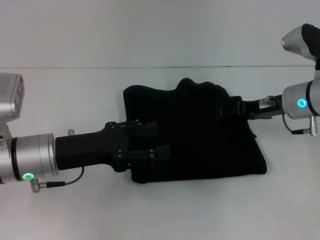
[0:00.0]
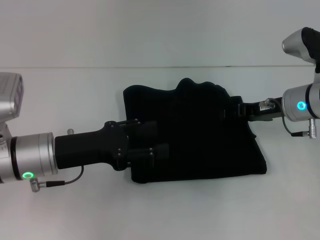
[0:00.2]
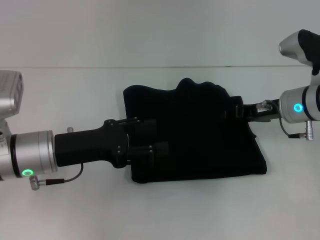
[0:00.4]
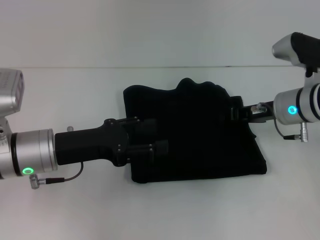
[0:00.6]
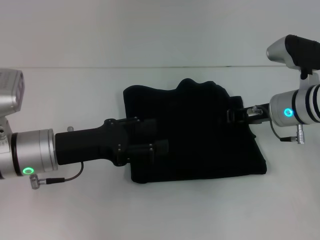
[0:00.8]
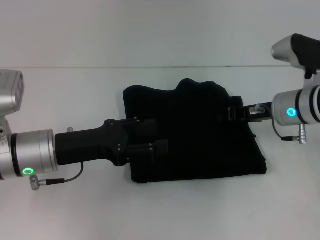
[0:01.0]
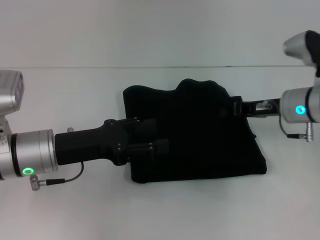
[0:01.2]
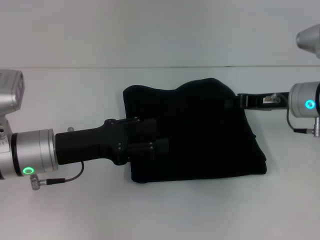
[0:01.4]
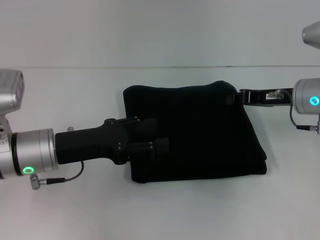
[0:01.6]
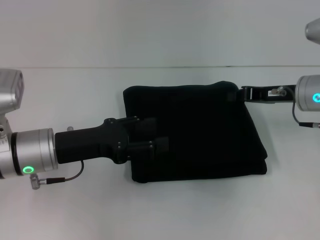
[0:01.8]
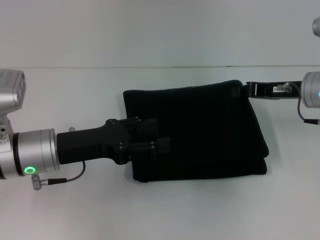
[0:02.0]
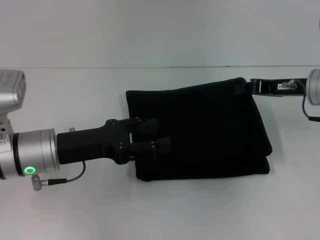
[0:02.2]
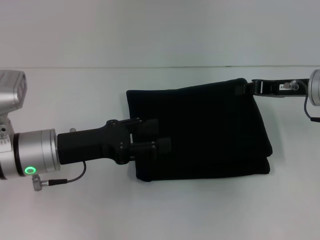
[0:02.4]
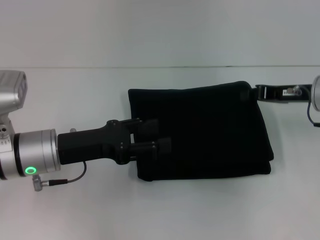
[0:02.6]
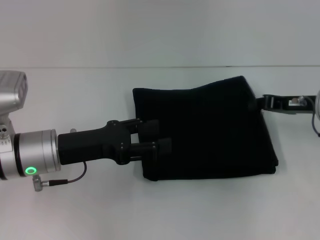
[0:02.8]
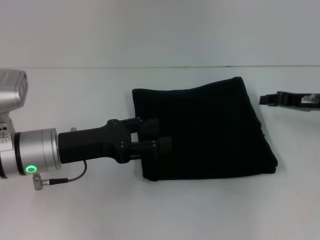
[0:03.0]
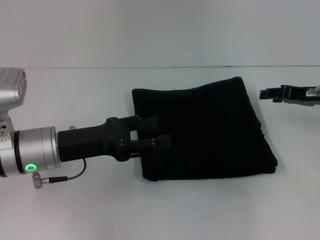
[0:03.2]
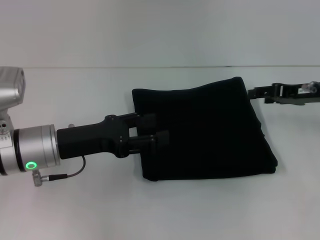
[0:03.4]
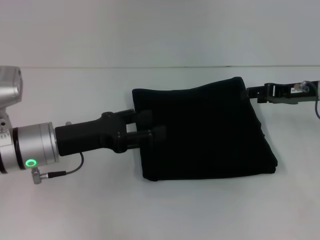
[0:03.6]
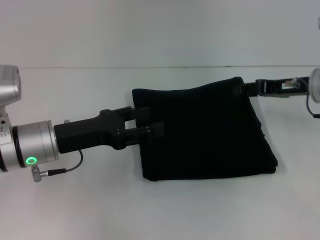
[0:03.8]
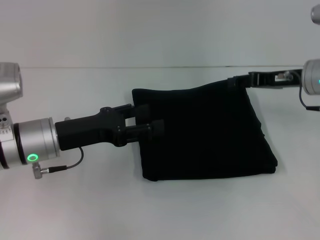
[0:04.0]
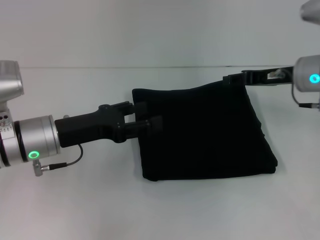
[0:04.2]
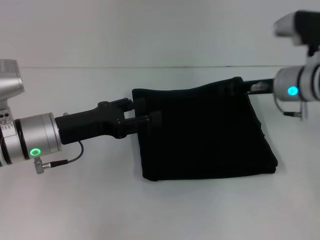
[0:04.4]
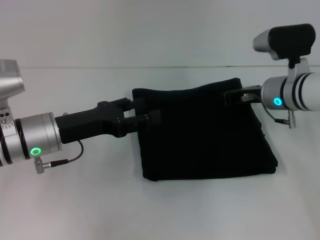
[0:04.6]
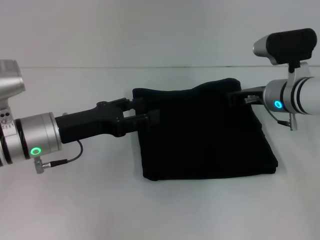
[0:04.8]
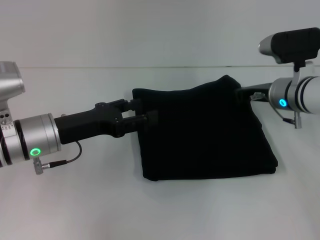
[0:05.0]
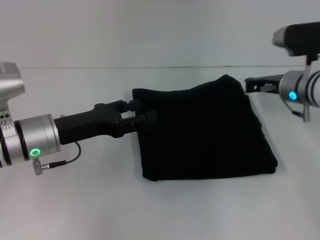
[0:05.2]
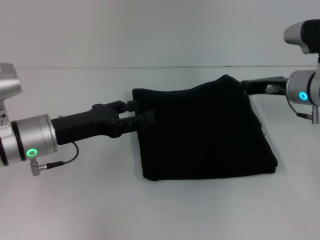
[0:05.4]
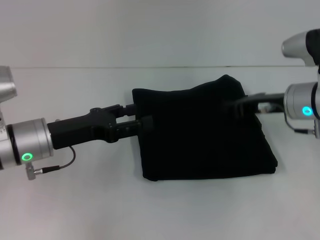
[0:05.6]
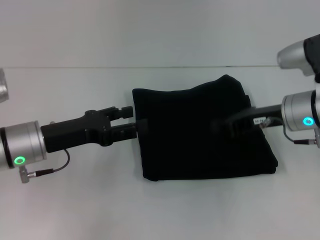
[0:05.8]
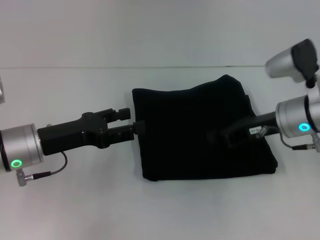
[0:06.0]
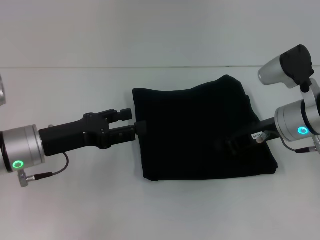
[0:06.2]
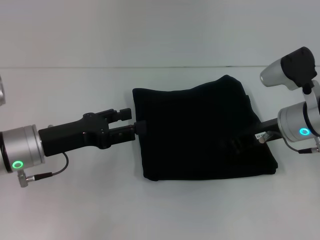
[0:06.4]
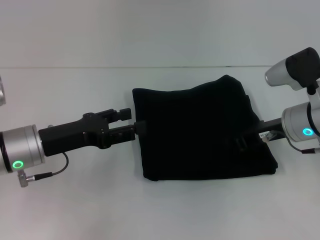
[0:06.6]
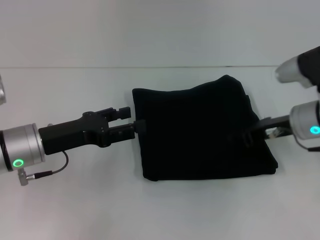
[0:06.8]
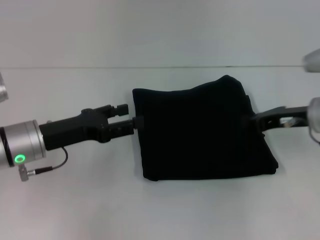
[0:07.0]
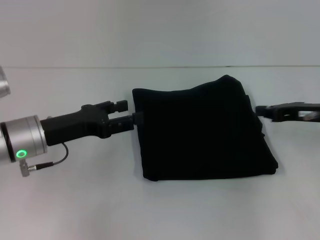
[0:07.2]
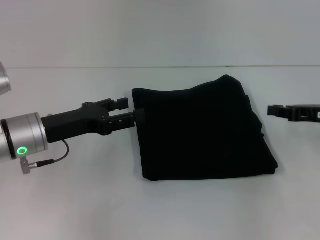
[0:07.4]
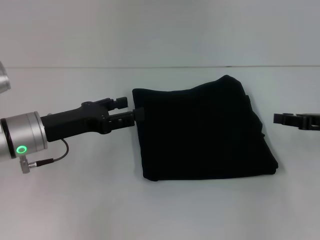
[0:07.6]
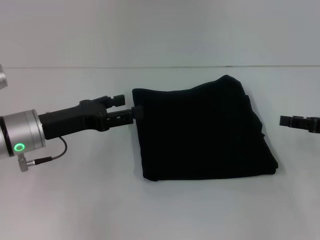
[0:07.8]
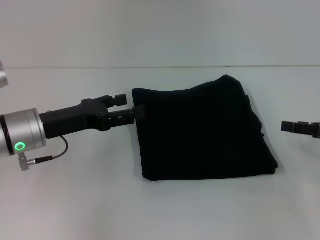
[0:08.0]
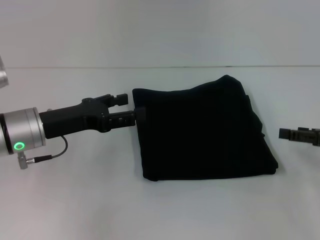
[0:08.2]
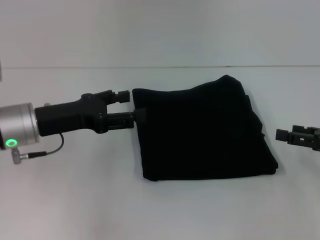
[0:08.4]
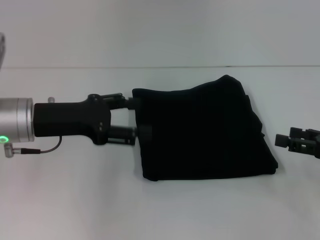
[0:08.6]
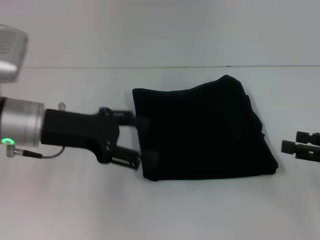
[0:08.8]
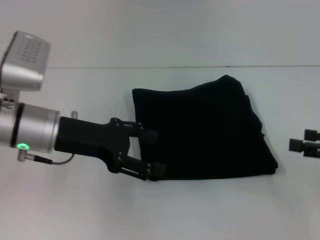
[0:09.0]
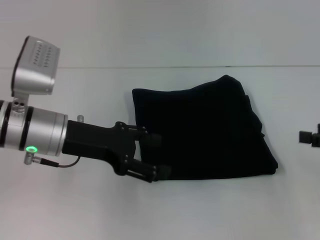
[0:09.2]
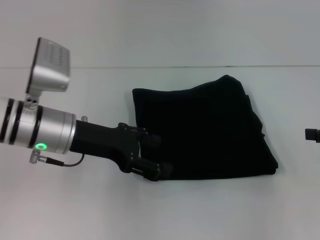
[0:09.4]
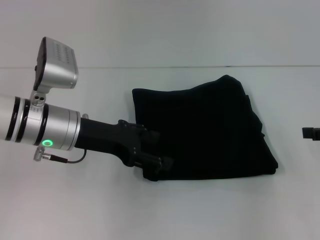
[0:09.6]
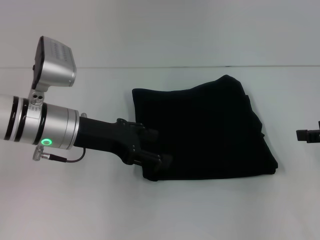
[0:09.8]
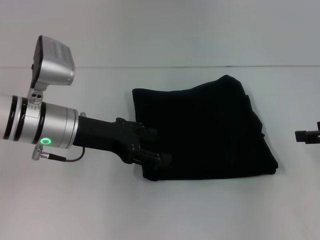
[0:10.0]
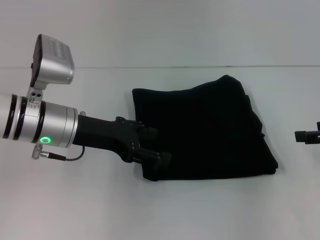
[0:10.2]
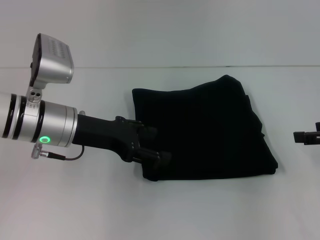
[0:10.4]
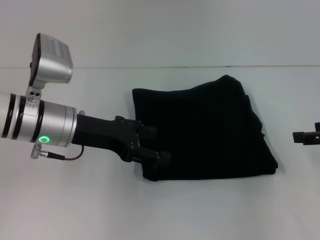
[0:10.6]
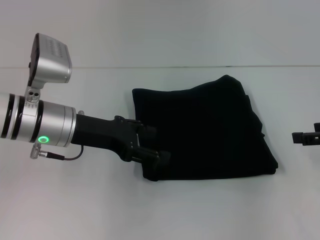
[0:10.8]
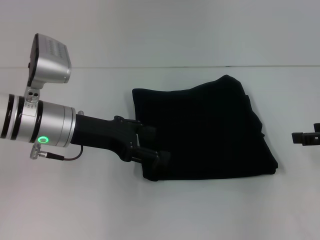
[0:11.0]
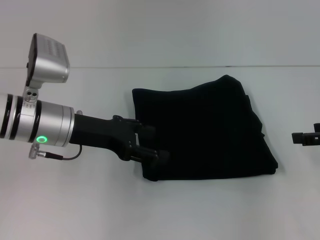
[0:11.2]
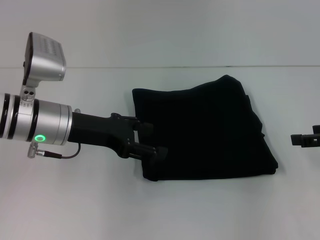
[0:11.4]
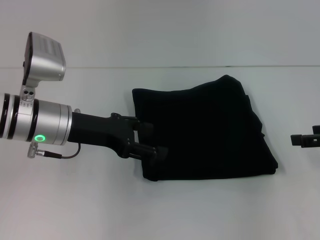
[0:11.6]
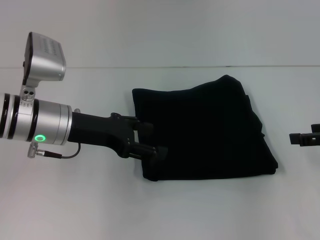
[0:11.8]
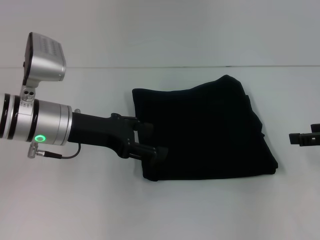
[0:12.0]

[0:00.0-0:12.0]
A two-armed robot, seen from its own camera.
0:00.0 to 0:01.6: The right gripper closes its fingers.
0:01.6 to 0:03.0: The right gripper shifts some 5 cm to the right.
0:03.0 to 0:04.4: The right gripper is displaced to the left by about 10 cm.
0:04.4 to 0:06.0: The right gripper moves backward, some 5 cm, and closes.
0:06.0 to 0:07.6: The right gripper is displaced to the right by approximately 10 cm.
0:07.6 to 0:09.0: The left gripper changes place by approximately 5 cm. The right gripper moves backward, roughly 10 cm, and opens up.
0:09.0 to 0:10.4: The right gripper ends up some 5 cm from where it was.
0:10.4 to 0:12.0: Both grippers stay put.

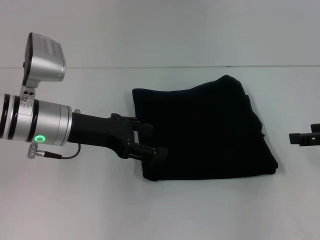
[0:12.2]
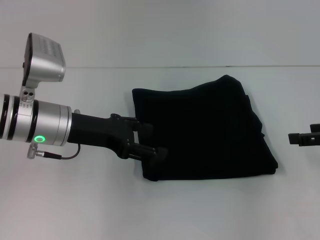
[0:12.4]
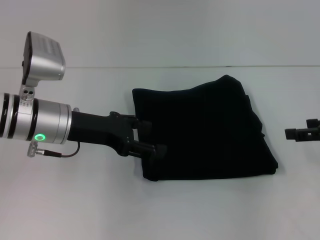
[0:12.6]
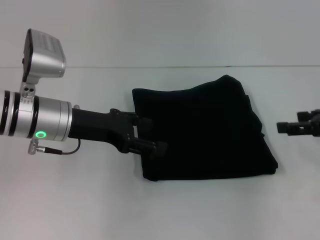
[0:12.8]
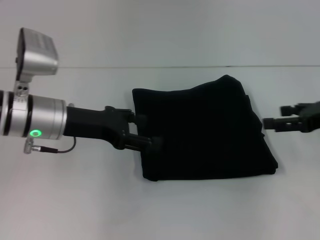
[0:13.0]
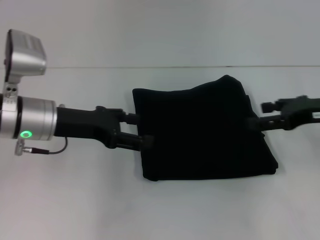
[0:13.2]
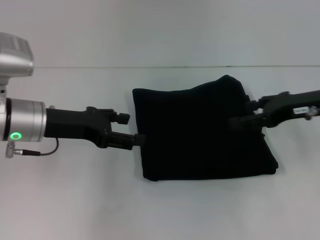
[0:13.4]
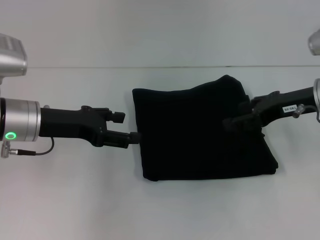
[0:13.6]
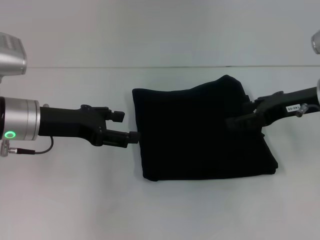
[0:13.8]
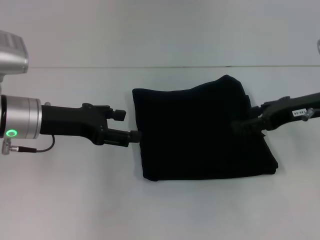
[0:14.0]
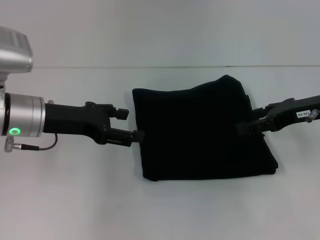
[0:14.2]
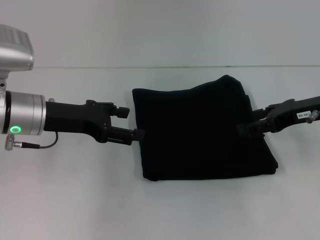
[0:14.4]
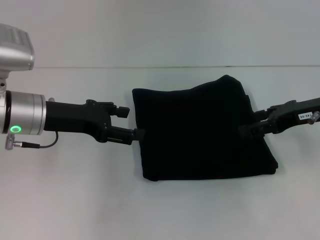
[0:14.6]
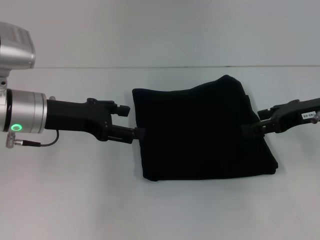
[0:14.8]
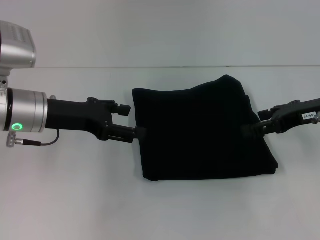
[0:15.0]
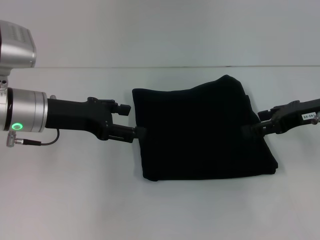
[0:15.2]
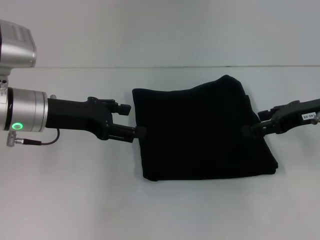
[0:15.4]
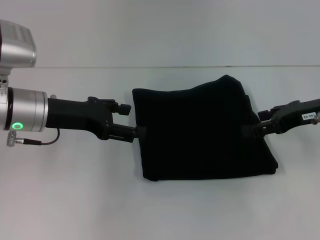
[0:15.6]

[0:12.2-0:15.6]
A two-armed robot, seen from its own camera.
0:12.2 to 0:13.8: The right gripper shifts approximately 10 cm to the left and forward.
0:13.8 to 0:15.6: There are only small adjustments of the grippers.

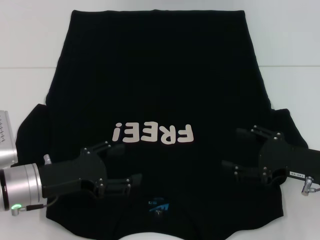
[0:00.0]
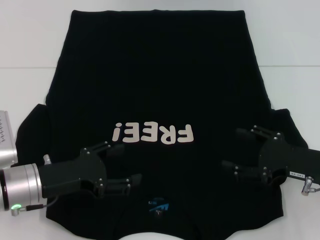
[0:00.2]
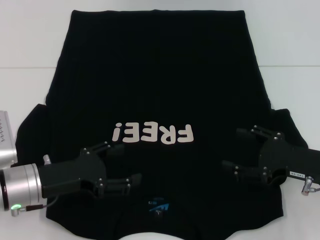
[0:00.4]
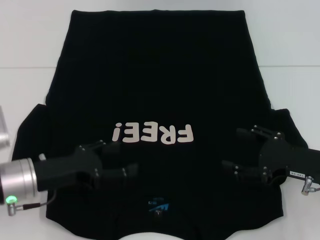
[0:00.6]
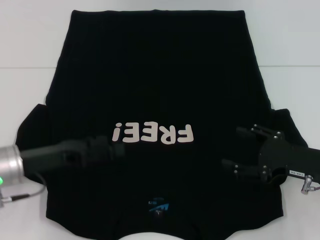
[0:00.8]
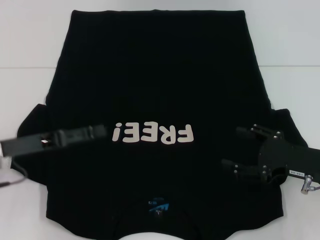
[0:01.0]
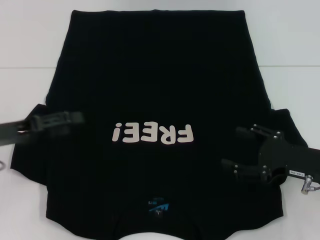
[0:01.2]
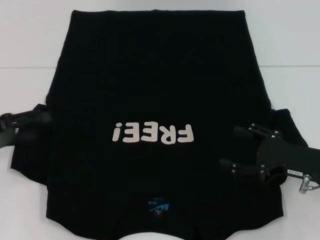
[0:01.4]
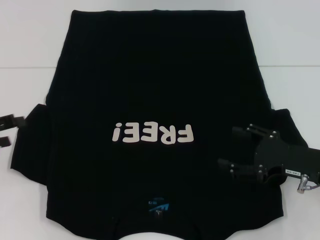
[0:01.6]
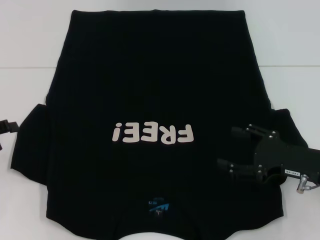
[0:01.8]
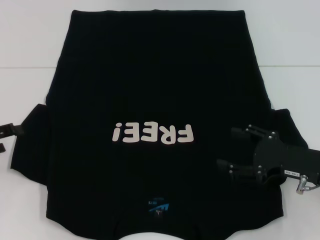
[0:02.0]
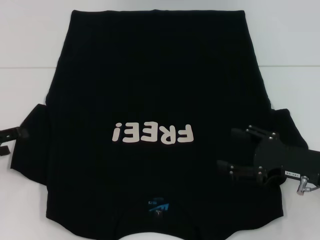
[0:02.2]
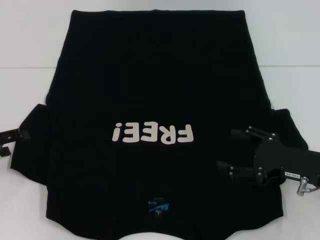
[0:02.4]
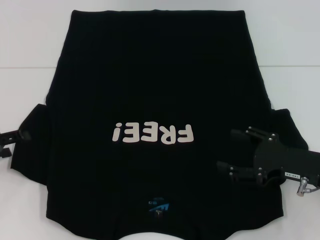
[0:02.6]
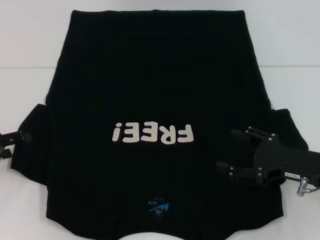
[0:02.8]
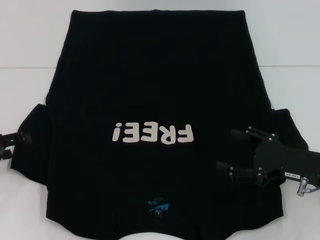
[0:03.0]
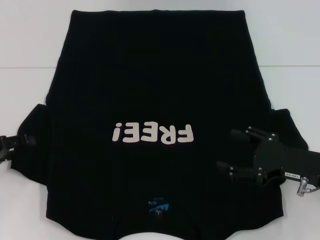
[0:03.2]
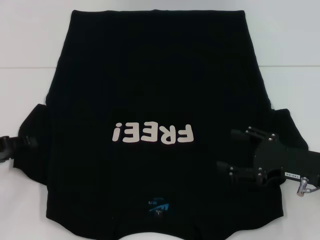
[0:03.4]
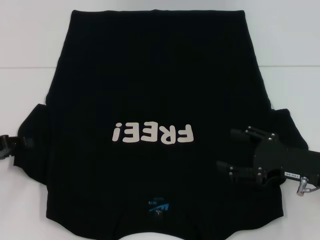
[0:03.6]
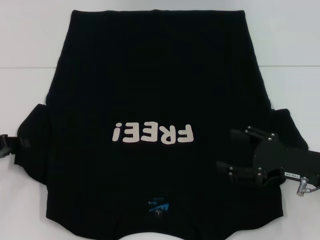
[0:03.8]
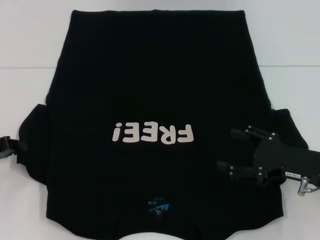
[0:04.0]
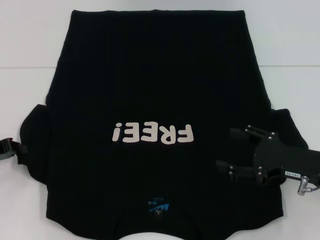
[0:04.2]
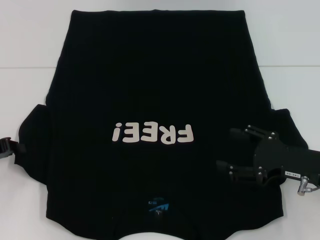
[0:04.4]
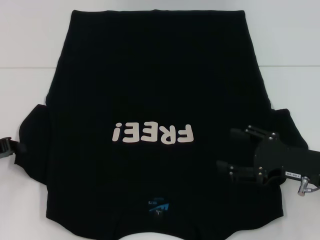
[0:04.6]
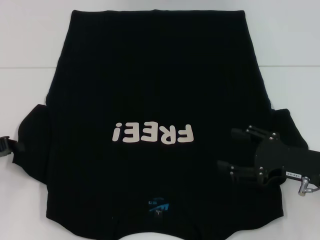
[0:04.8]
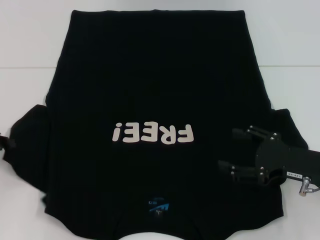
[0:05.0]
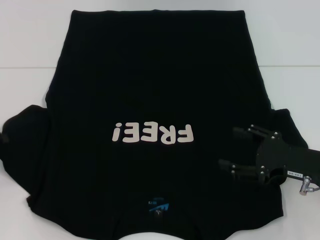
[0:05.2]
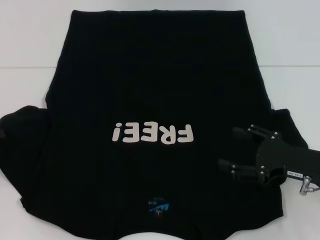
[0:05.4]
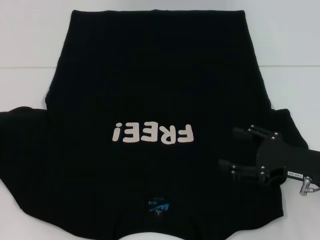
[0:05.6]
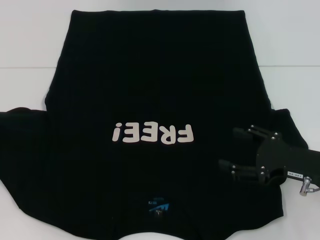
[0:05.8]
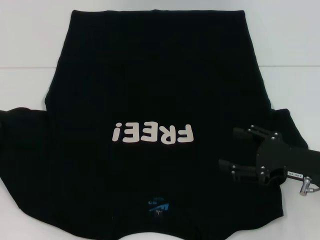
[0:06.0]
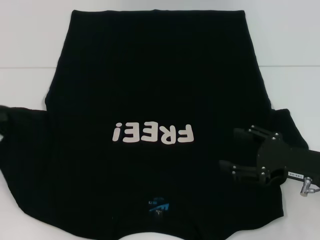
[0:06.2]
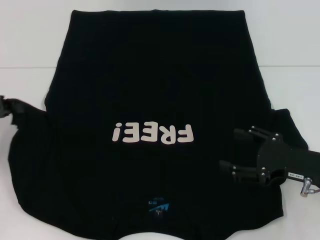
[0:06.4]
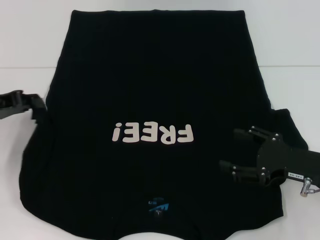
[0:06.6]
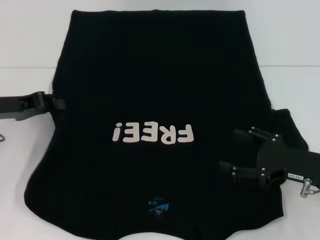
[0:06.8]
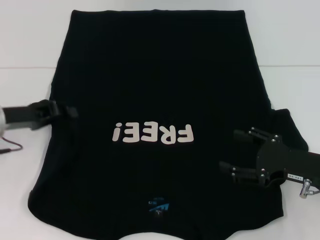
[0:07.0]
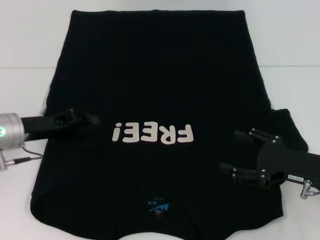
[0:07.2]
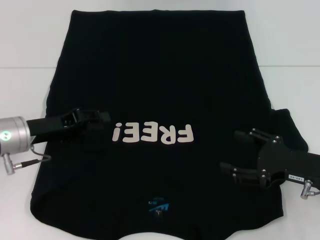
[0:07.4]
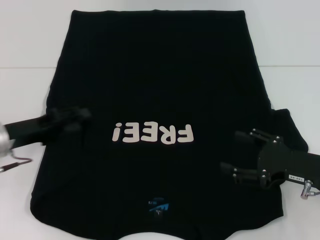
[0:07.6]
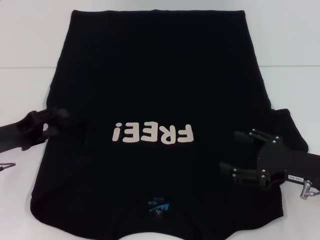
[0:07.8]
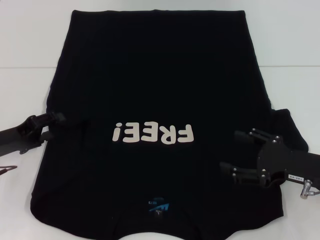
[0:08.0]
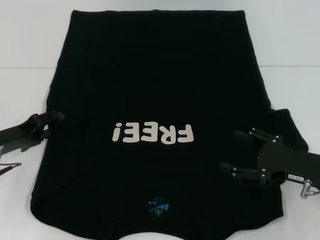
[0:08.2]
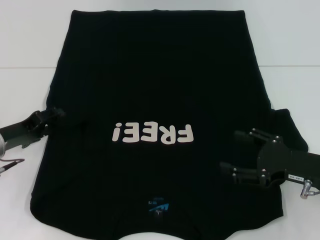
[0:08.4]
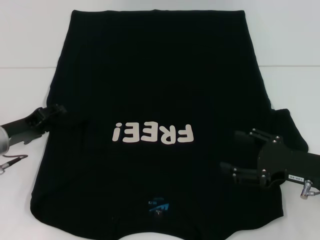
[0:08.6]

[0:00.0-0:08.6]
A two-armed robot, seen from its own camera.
Step, 0:00.0 to 0:07.6: Fold the bottom left sleeve with your left hand.
0:00.0 to 0:01.4: The left gripper moves to the left and upward, approximately 15 cm.
0:01.4 to 0:02.8: The grippers make only small movements.
0:02.8 to 0:04.4: The left gripper closes its fingers.
0:04.4 to 0:05.8: The left gripper shifts by roughly 5 cm.
0:05.8 to 0:07.2: The left gripper moves to the right, about 15 cm.
0:07.2 to 0:08.6: The left gripper ends up about 5 cm from where it was, and opens up.
